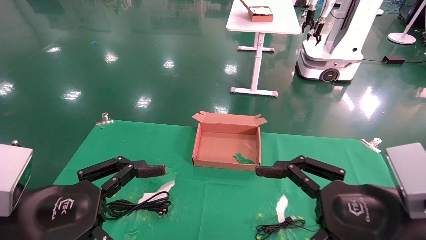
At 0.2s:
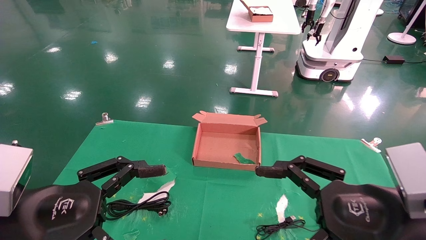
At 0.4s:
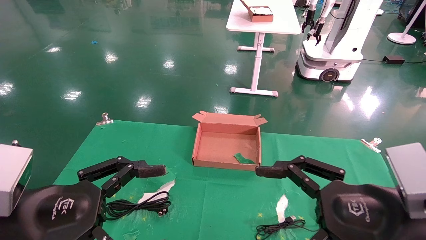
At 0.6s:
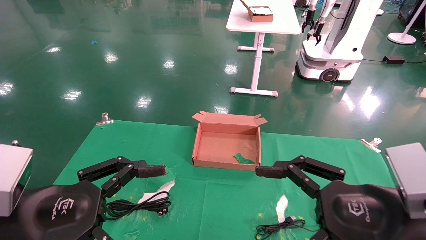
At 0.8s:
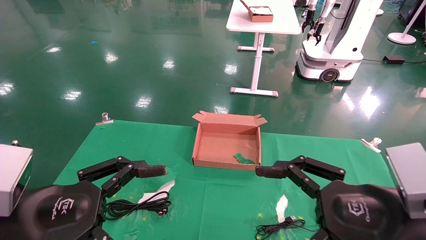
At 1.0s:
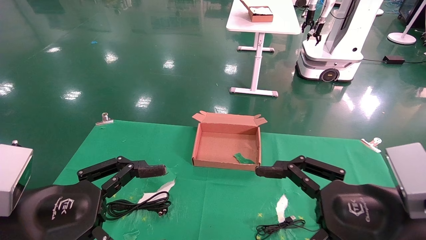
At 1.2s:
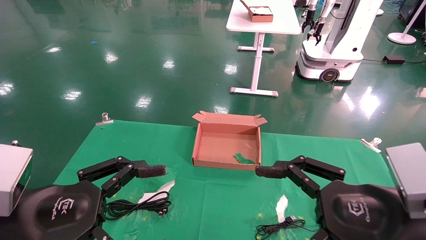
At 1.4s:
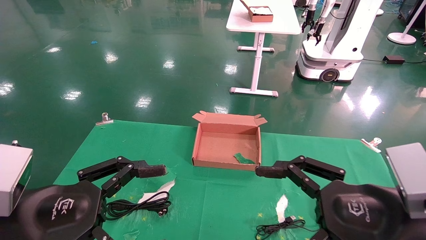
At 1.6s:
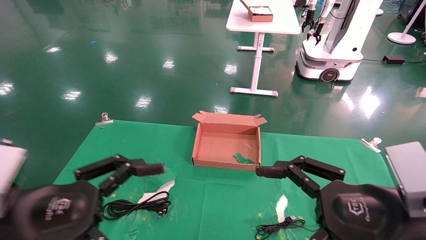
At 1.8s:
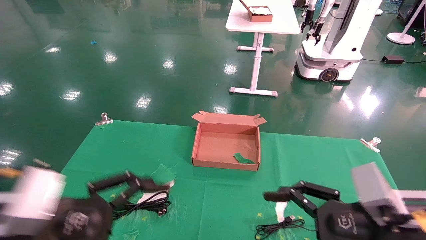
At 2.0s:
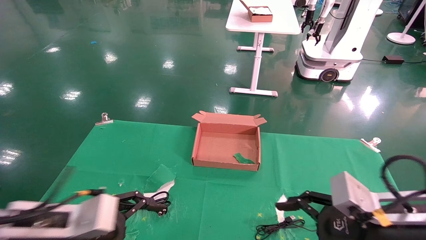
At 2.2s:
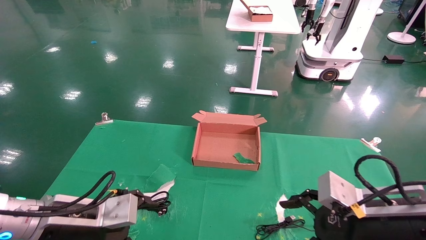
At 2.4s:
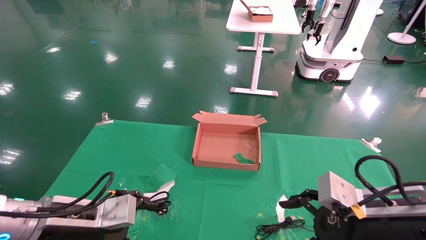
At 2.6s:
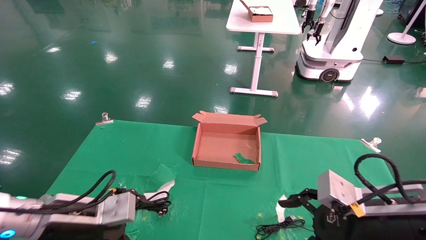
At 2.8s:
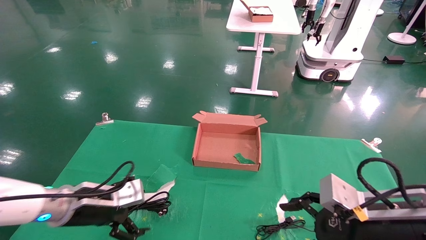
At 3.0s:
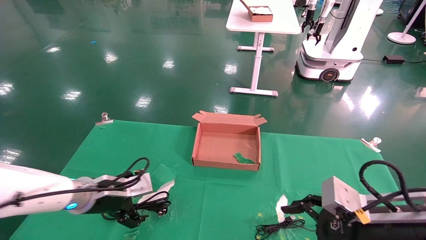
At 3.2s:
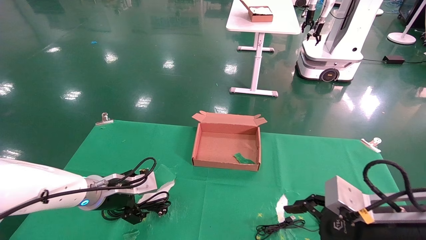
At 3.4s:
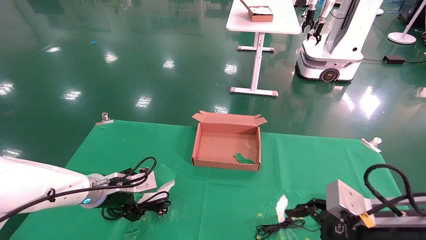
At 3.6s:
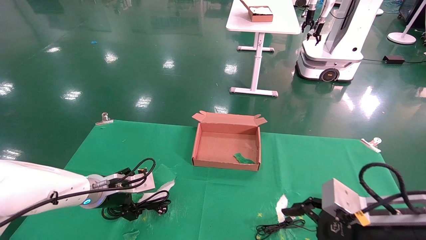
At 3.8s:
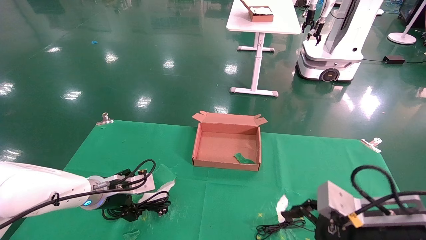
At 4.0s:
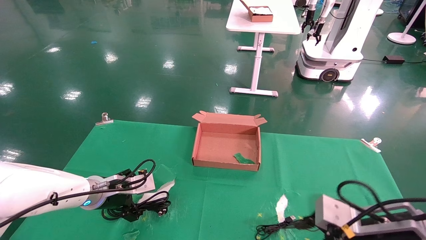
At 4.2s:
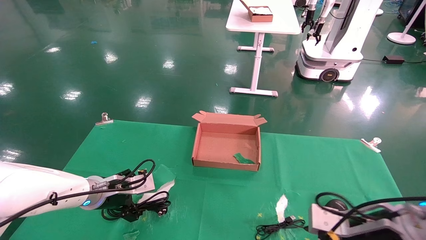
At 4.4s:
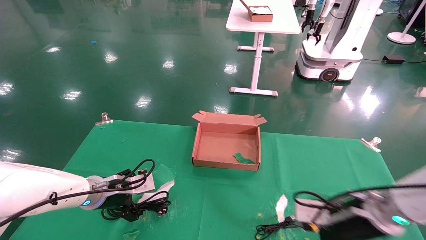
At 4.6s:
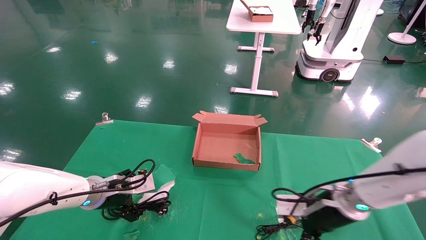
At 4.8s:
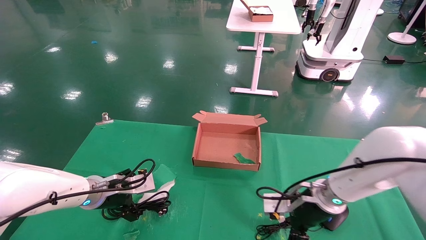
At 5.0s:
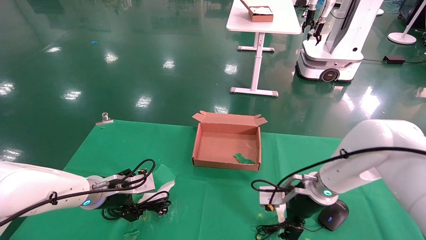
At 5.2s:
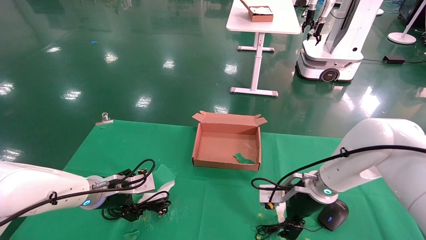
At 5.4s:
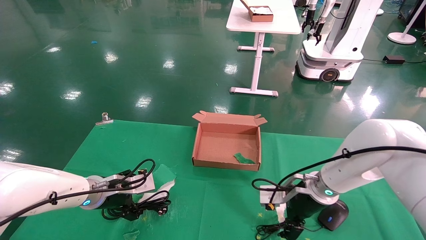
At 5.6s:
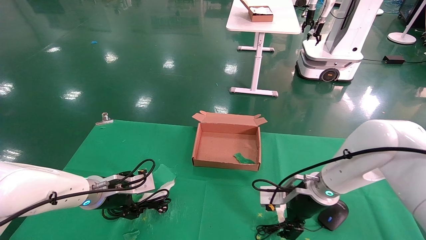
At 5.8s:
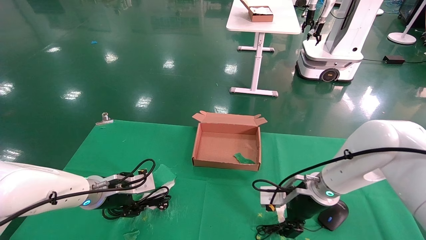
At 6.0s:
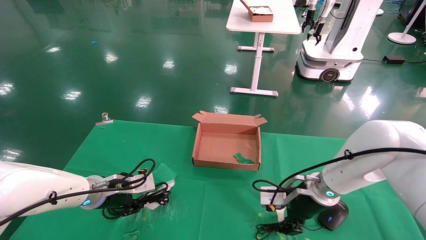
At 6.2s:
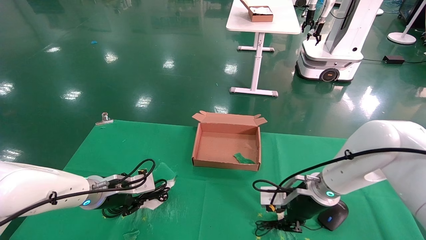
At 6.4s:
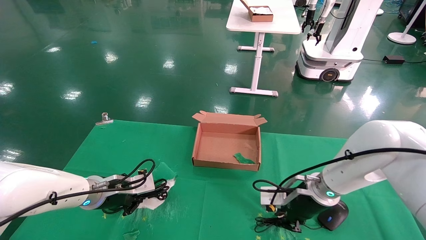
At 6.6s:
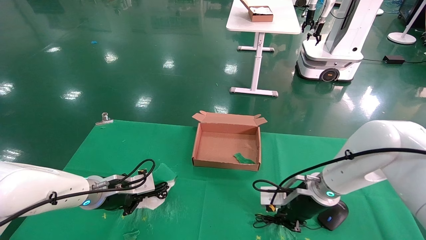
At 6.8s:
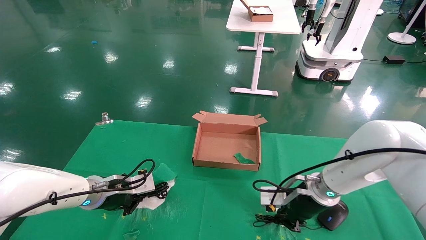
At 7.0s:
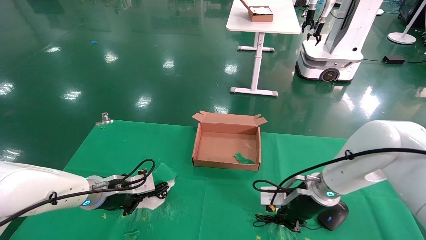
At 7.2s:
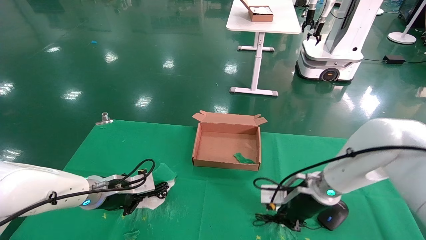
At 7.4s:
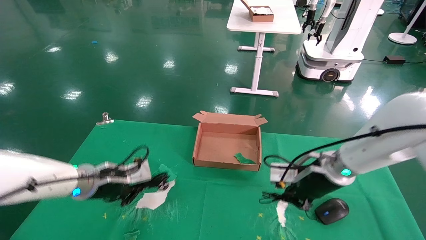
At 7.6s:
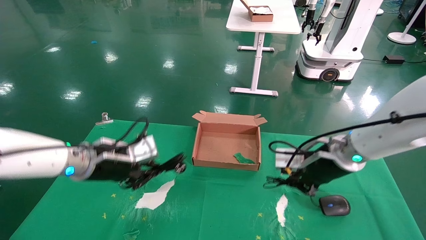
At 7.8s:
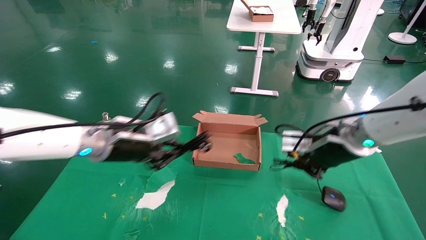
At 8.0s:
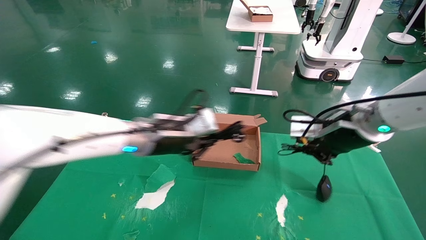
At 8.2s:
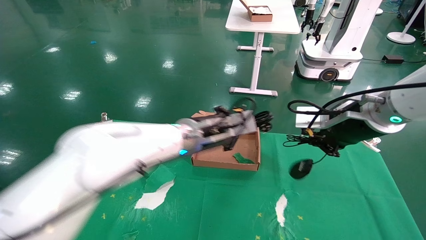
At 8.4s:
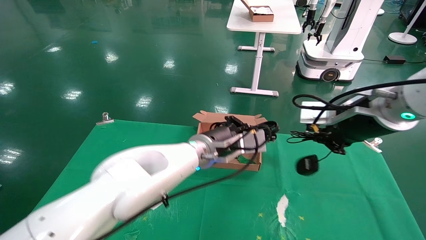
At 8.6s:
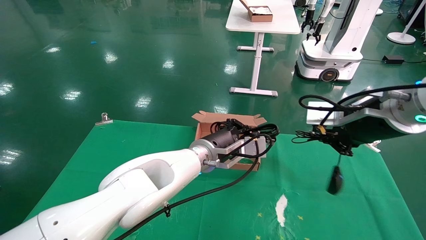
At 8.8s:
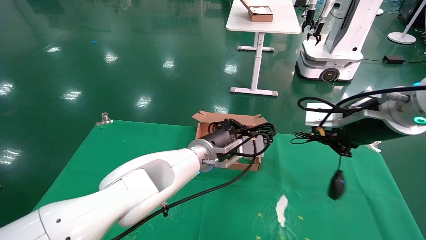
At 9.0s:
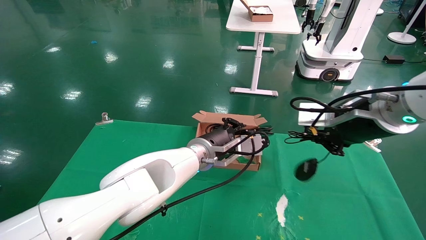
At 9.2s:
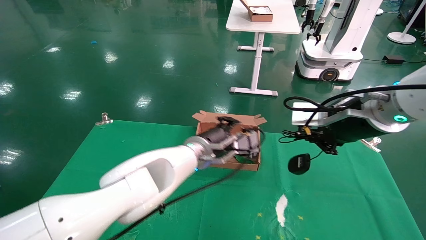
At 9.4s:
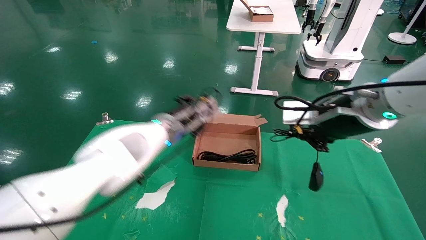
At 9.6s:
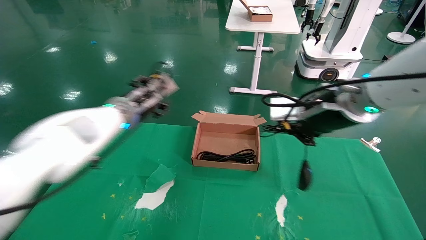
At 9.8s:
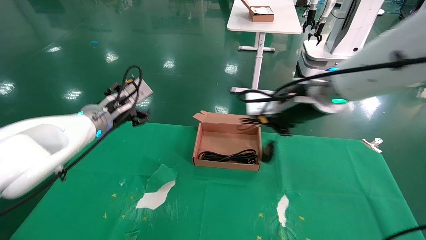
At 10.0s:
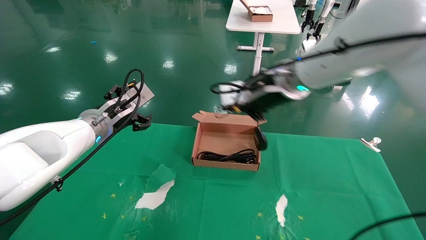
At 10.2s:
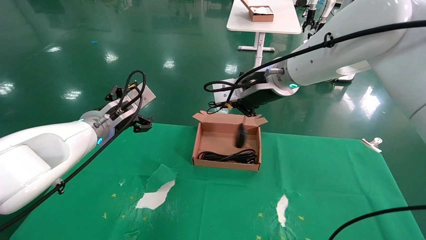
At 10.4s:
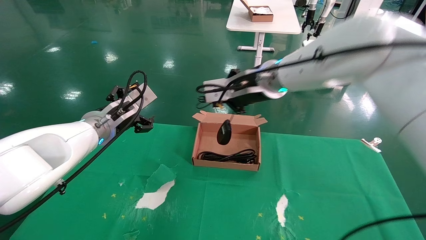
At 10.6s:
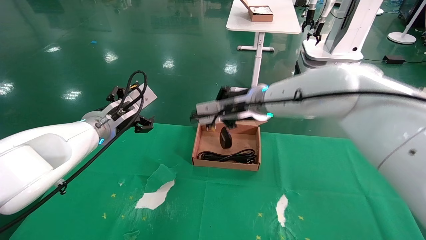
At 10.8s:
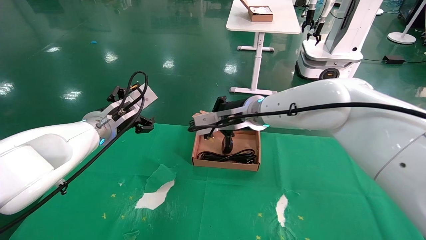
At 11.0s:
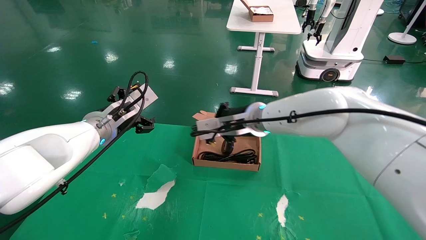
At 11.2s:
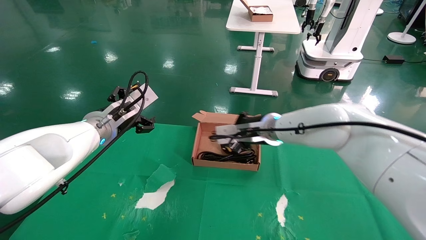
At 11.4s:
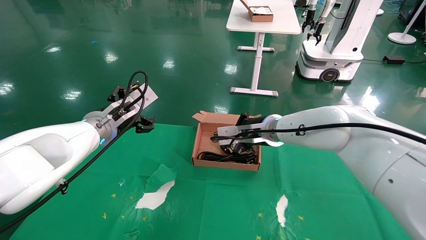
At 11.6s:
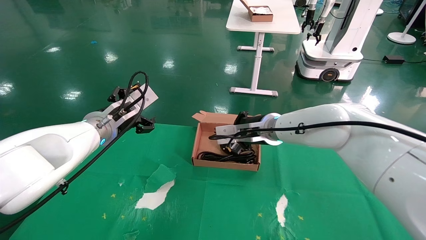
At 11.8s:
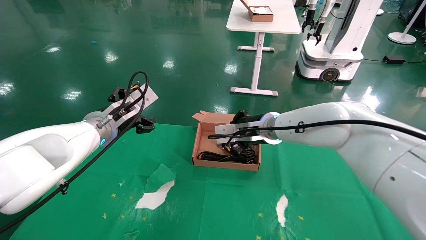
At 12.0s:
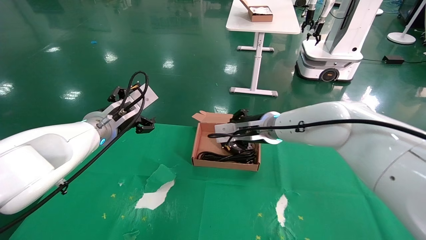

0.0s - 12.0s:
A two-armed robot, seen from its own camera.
Step, 2.2s - 7.6s: Grab and lift both the mouse and power cord from the accessory packaging area at the same time.
Step, 7.8s - 11.8s: Place the mouse and power cord into the box.
0.0s - 1.6s: There are only small adjustments of the grippers.
1.6s - 3.0s: The left gripper shifts roughly 20 cm forward; the right gripper shifts by roughly 5 cm.
3.0s - 4.4s: The right gripper travels forward by about 10 cm.
4.4s - 6.0s: The right gripper shifts some 10 cm forward and to the left, and closes its fingers. The left gripper closes up.
6.0s - 7.6s: Both grippers travel together upward, about 10 cm. The left gripper closes. The right gripper closes.
7.6s - 9.0s: The left gripper moves to the right, roughly 20 cm, while the right gripper travels upward and backward by approximately 10 cm.
9.0s - 10.4s: The right gripper shifts about 20 cm to the left and forward. Meanwhile the left gripper travels to the left by approximately 20 cm, and opens.
10.4s - 12.0s: The right gripper shifts some 10 cm downward.

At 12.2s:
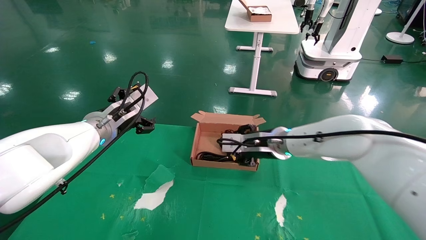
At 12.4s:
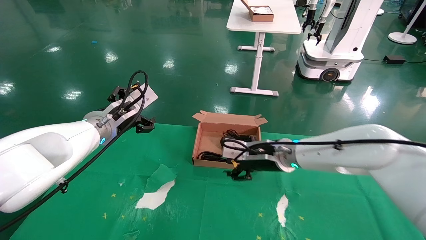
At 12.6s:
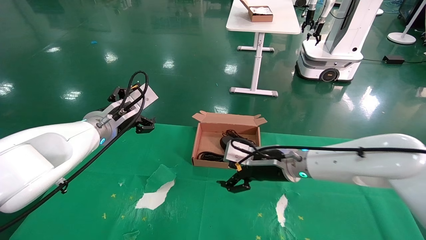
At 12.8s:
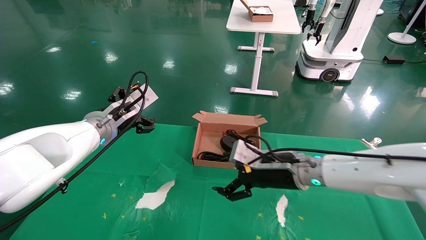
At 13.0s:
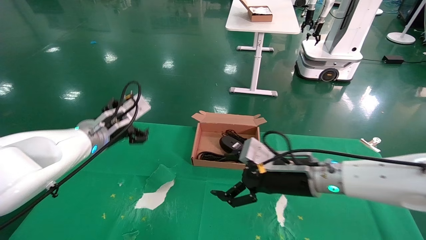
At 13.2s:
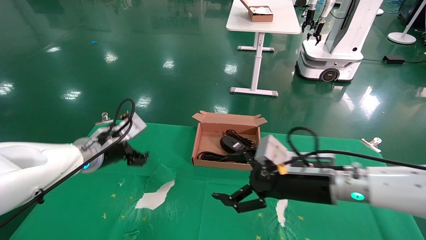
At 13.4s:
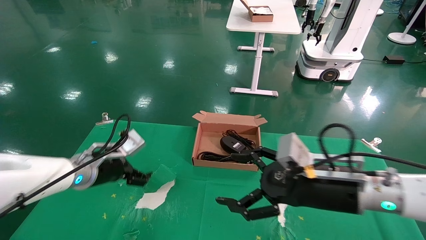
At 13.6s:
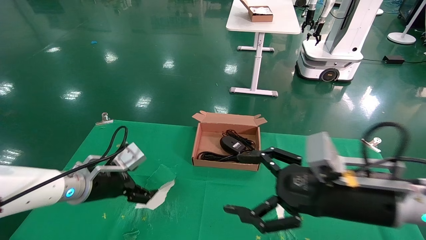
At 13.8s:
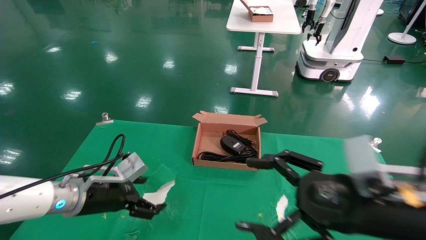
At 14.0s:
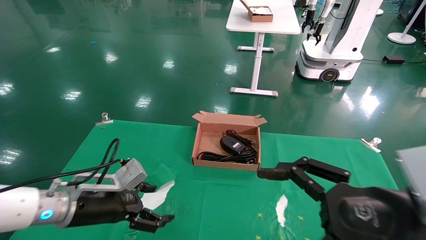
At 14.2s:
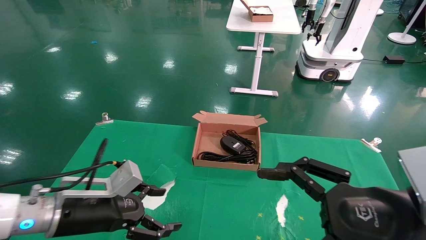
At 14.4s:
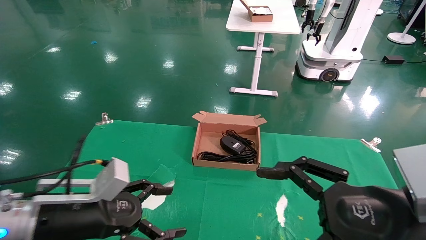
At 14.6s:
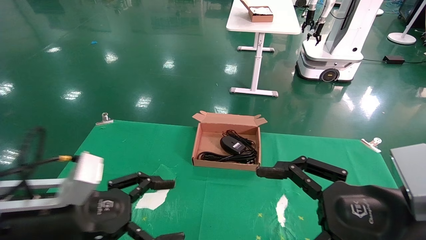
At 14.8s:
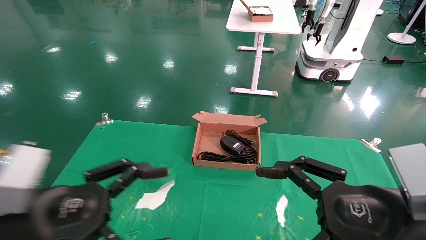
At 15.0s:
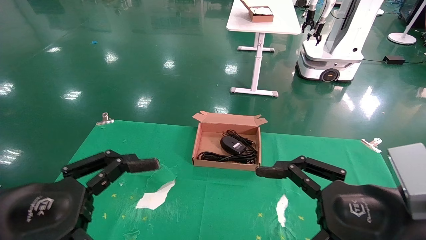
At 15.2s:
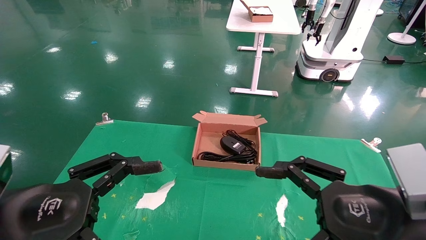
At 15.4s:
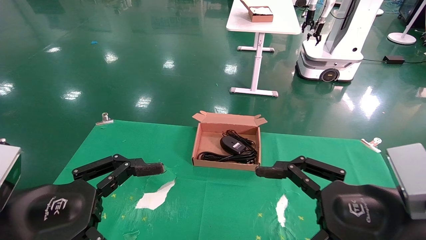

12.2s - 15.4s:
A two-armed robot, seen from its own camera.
12.2s - 13.8s: The left gripper heads downward and backward, covering some 15 cm, while the right gripper heads backward and to the right, covering approximately 25 cm, and opens up.
13.8s - 15.4s: The left gripper is displaced backward and upward by some 20 cm.

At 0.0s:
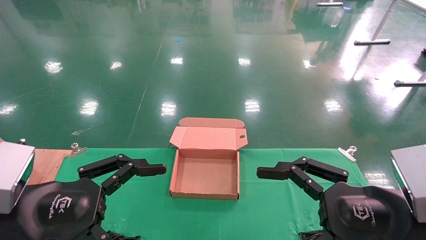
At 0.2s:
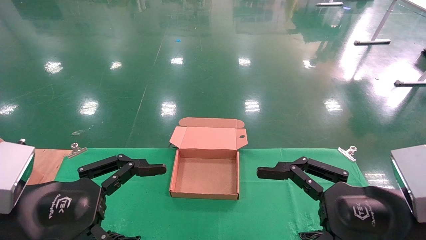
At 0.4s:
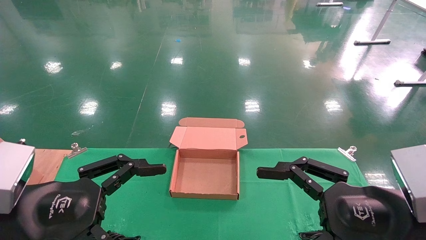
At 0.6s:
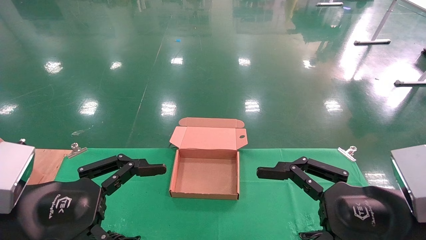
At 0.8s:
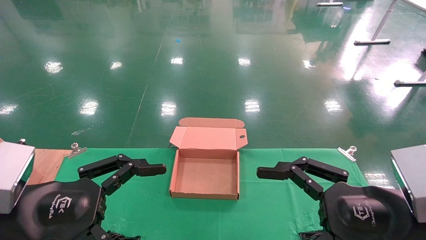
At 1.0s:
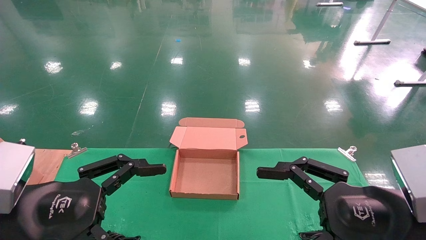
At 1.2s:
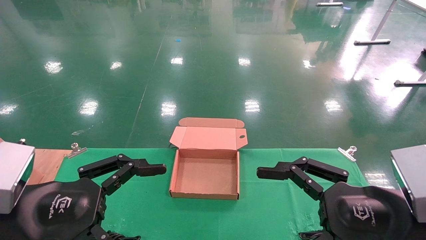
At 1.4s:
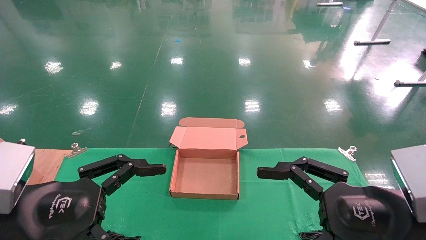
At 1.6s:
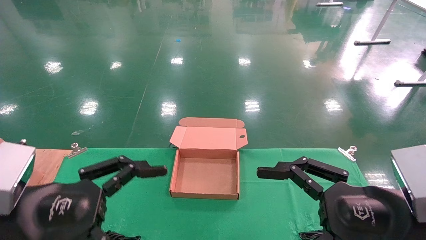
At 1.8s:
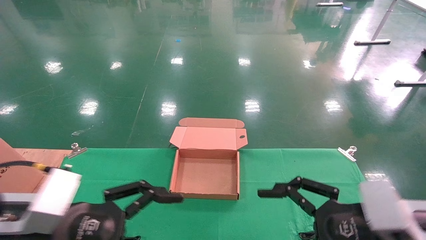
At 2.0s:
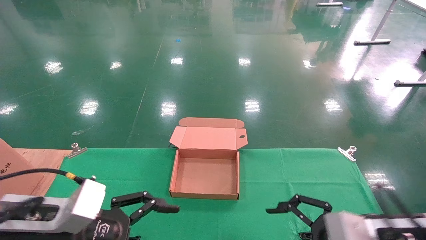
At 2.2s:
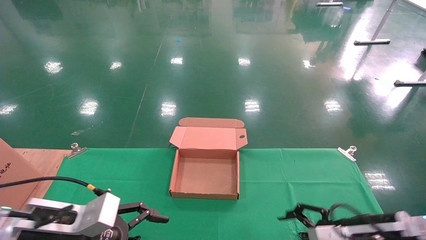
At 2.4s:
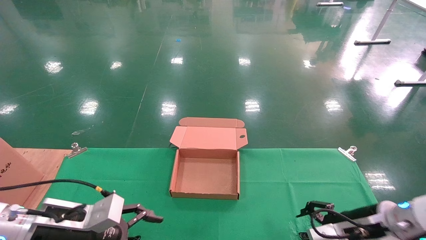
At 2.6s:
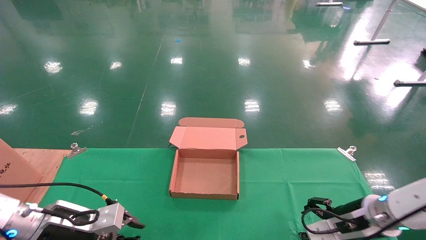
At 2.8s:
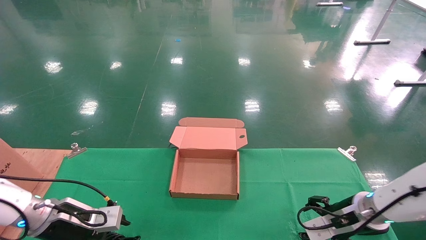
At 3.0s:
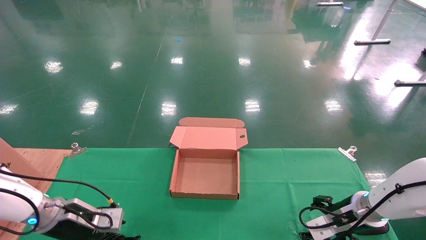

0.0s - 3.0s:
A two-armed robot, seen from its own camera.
0.0s - 1.6s: The grippers make only small movements.
1.6s - 3.0s: Both grippers move forward and downward, roughly 25 cm.
